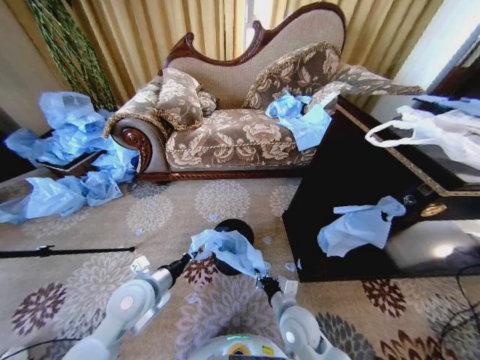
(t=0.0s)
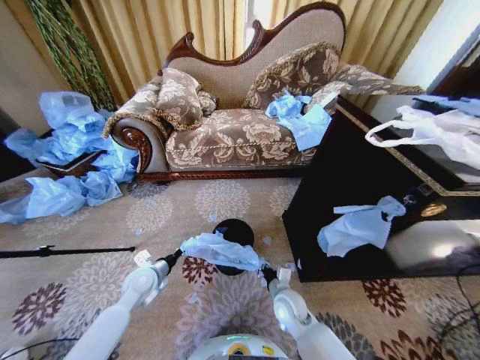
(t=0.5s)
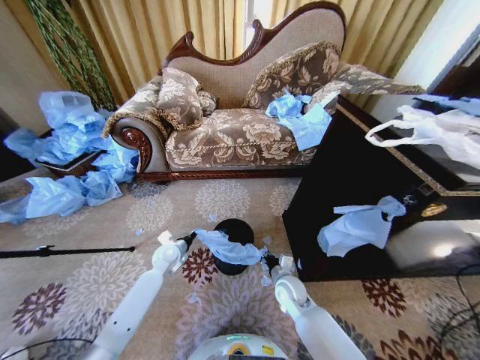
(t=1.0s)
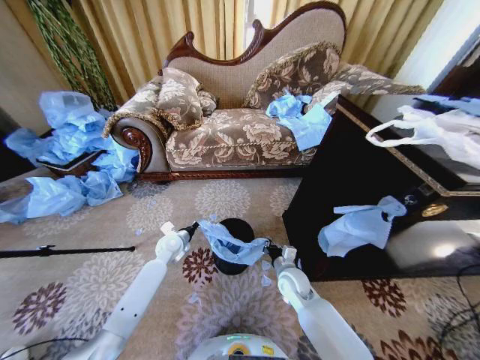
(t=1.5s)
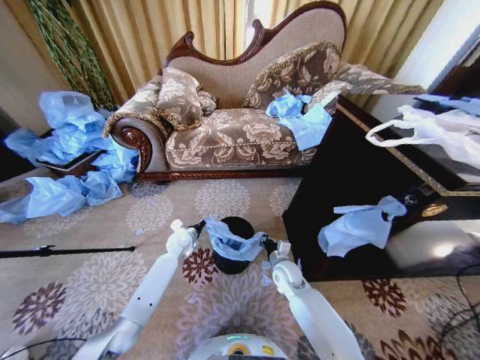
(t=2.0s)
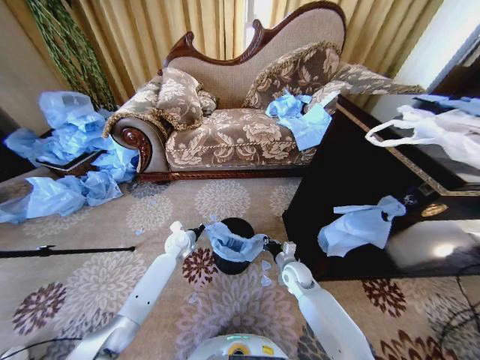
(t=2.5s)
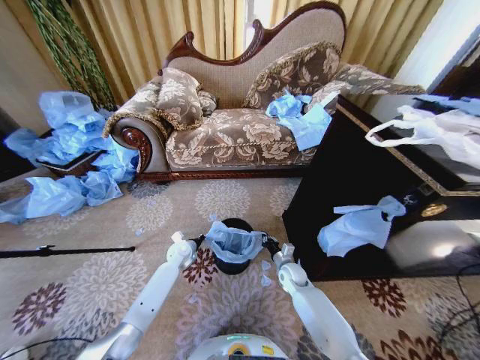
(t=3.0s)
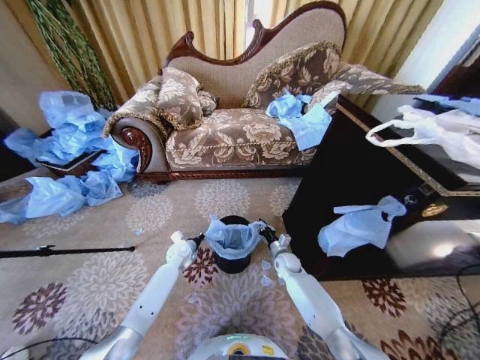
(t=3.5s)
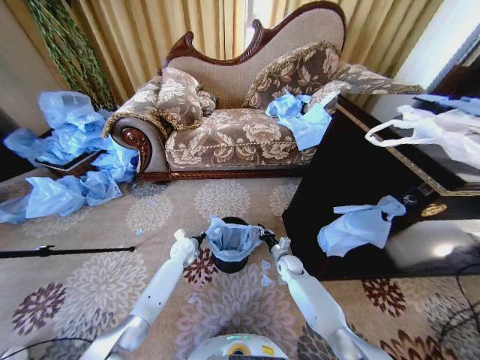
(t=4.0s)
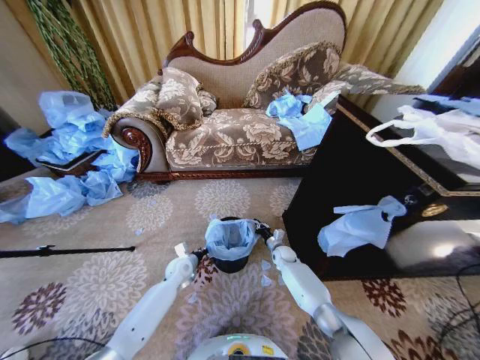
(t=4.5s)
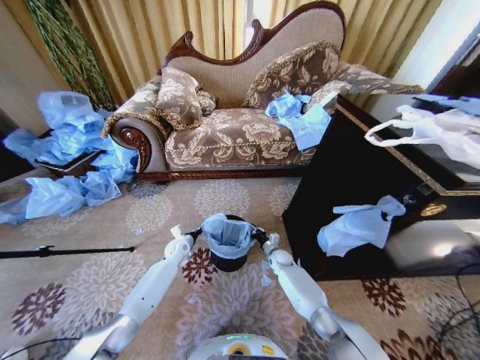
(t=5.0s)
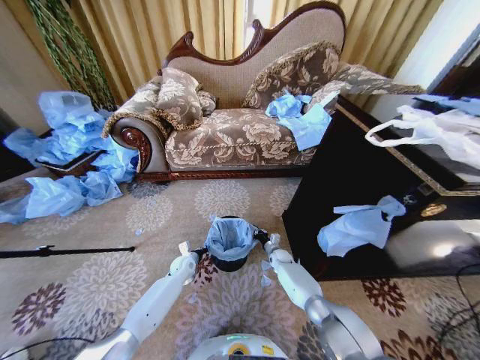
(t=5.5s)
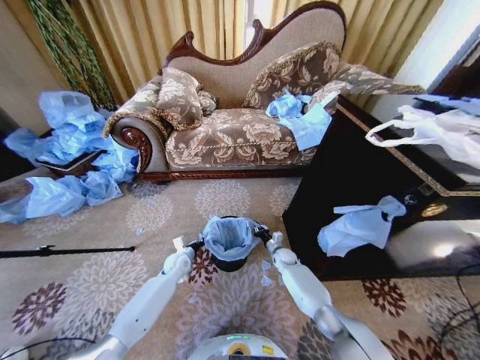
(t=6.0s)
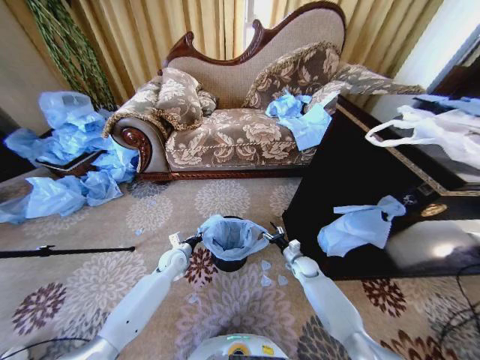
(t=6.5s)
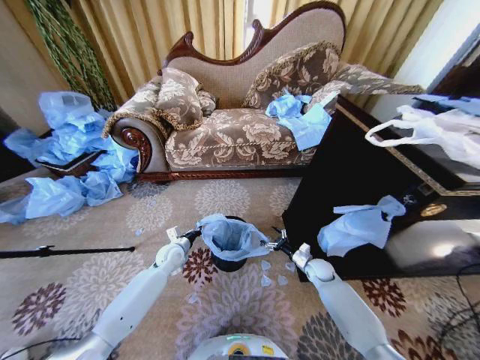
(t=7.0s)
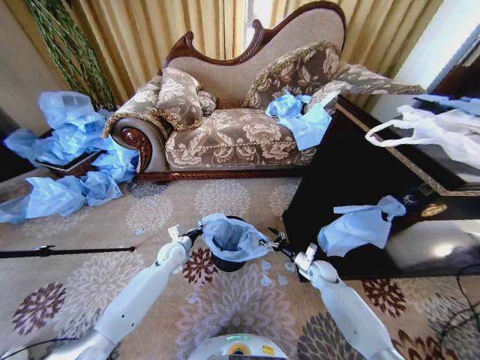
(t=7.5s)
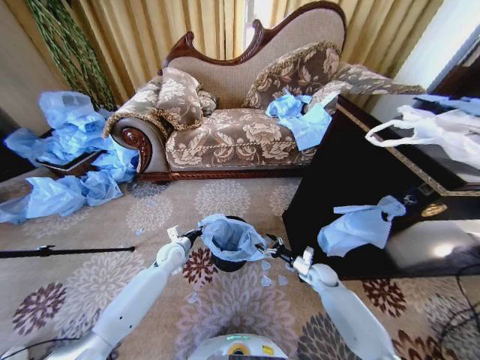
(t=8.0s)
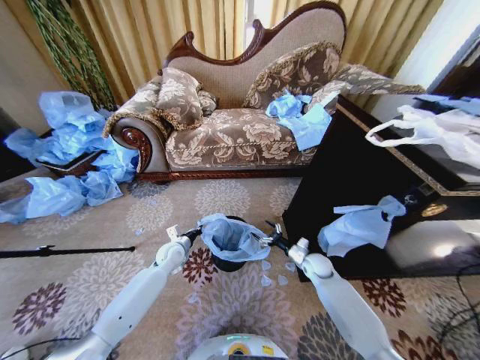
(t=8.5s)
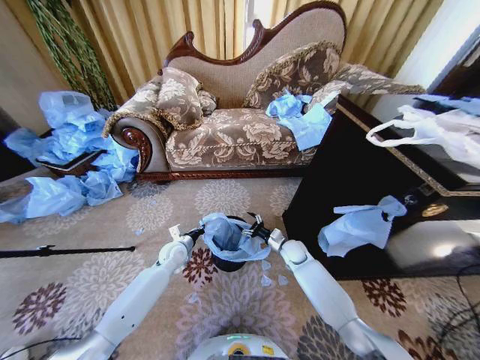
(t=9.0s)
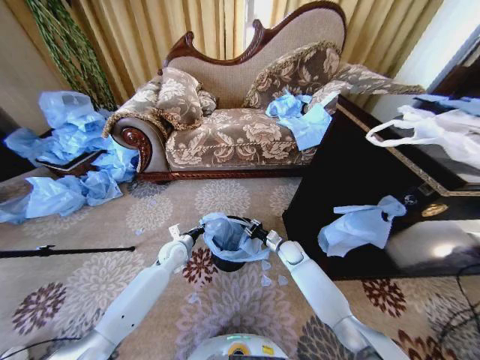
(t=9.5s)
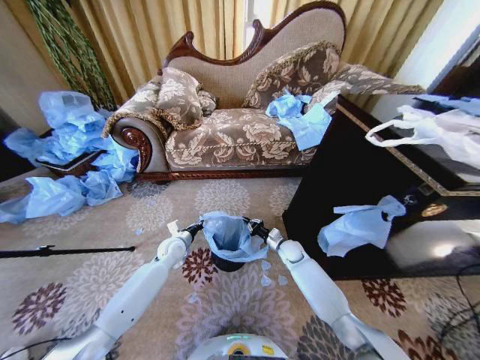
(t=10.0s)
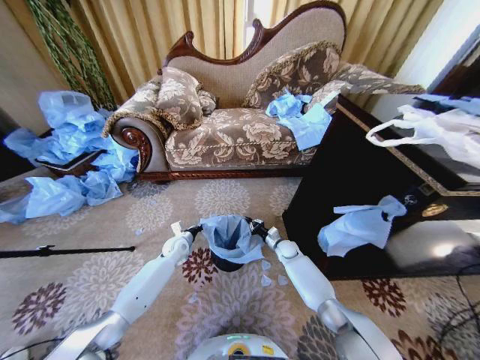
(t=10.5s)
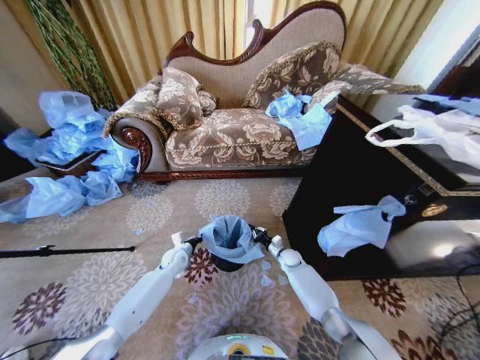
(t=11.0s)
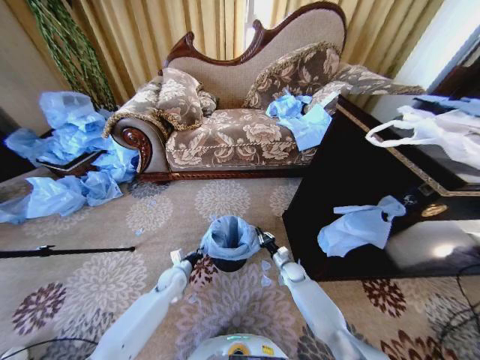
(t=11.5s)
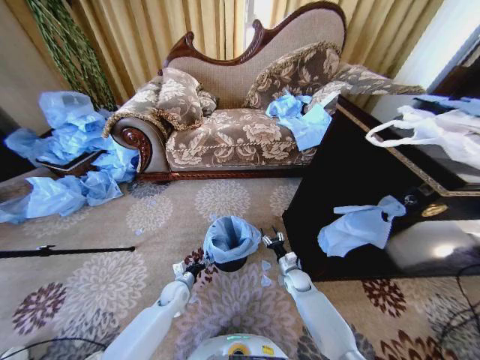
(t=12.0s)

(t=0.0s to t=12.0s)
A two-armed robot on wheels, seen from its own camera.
Task of the whole recording: Place a garbage bag over the trash bin.
t=0.0s - t=2.0s: The left gripper is displaced forward and downward by some 25 cm, while the right gripper moves forward, about 15 cm.
t=2.0s - t=4.0s: The right gripper goes roughly 10 cm downward and forward; the left gripper is displaced downward by approximately 5 cm.
t=4.0s - t=6.0s: The left gripper moves forward and backward over approximately 10 cm, changing direction 2 times.
t=6.0s - t=8.0s: The left gripper moves upward, roughly 5 cm; the right gripper shifts some 15 cm to the right and backward, and opens.
t=8.0s - t=10.0s: The right gripper moves to the left and forward, roughly 15 cm, and closes.
t=10.0s - t=12.0s: Both grippers move downward and backward, about 15 cm. The right gripper opens up. Meanwhile the left gripper opens up.

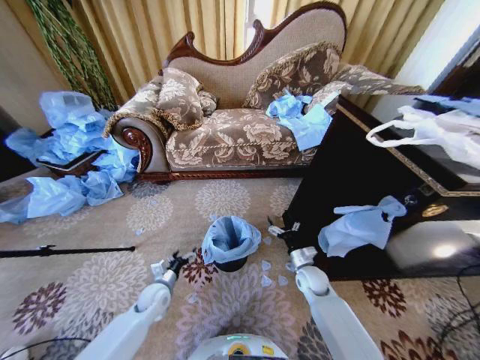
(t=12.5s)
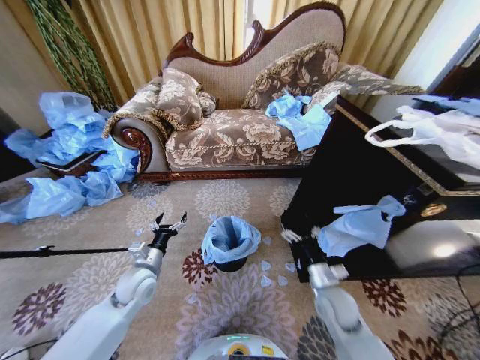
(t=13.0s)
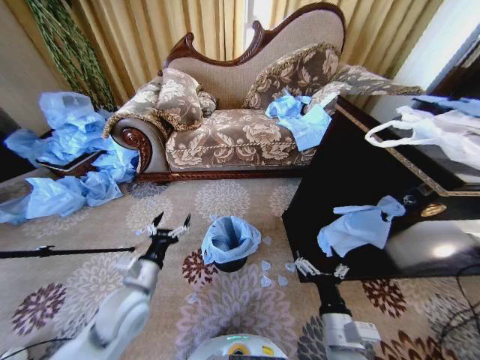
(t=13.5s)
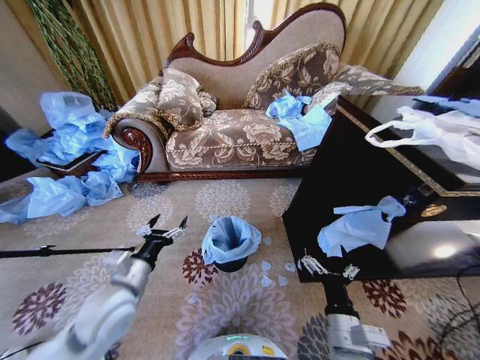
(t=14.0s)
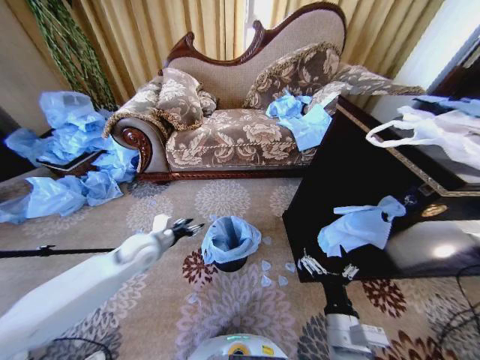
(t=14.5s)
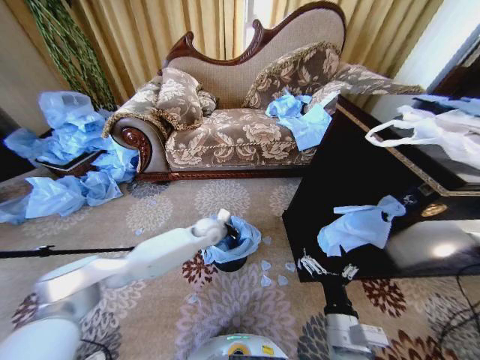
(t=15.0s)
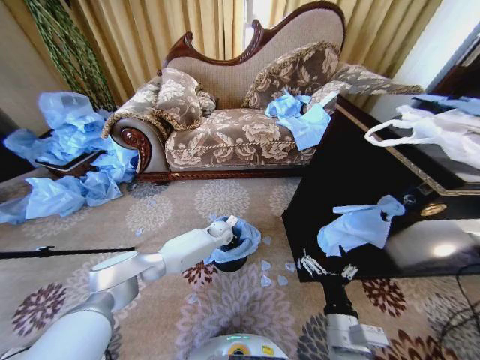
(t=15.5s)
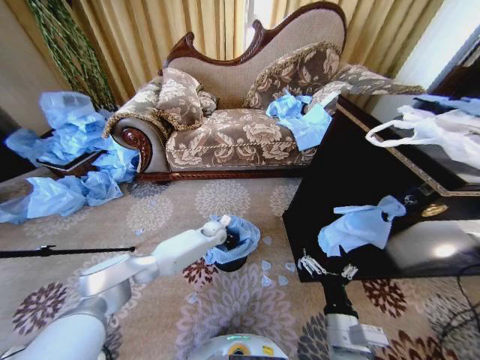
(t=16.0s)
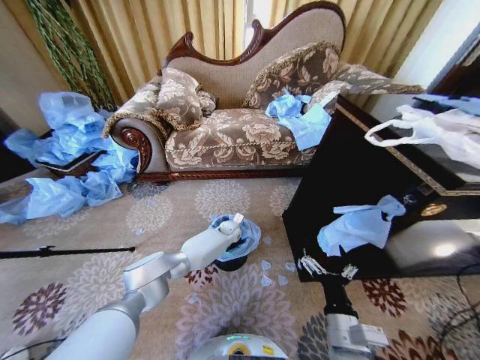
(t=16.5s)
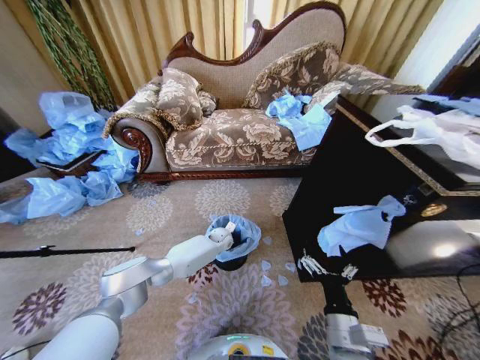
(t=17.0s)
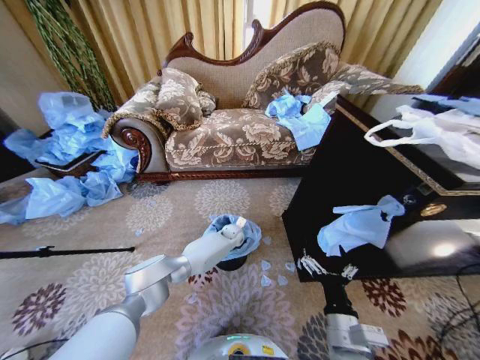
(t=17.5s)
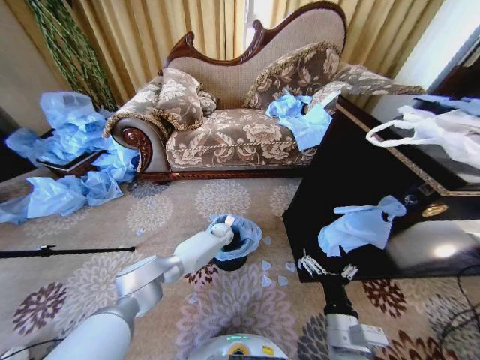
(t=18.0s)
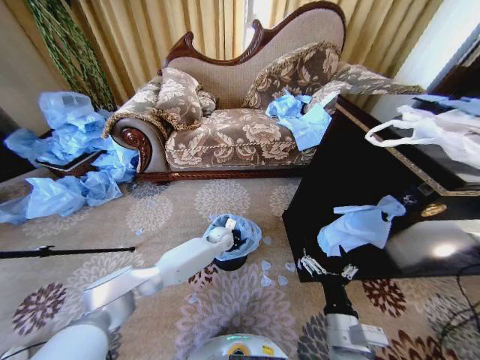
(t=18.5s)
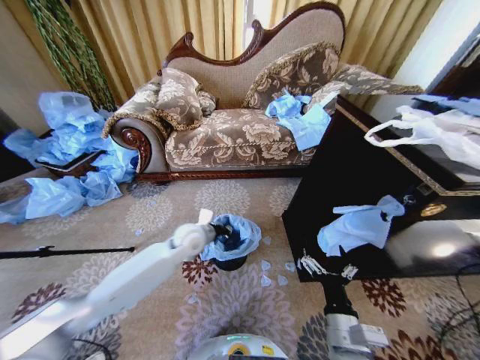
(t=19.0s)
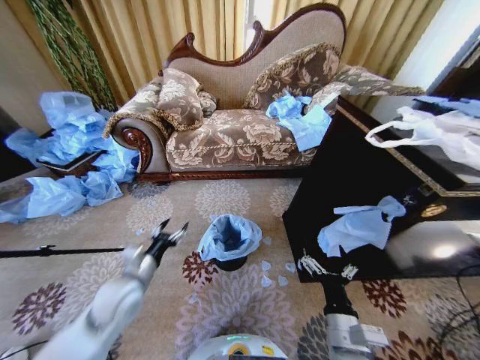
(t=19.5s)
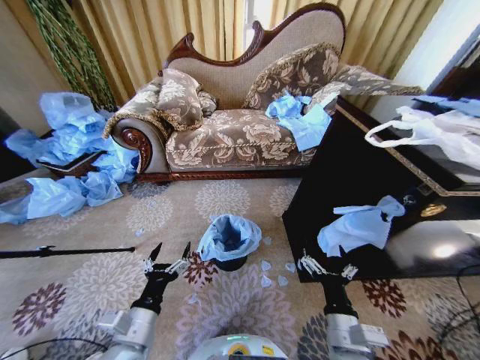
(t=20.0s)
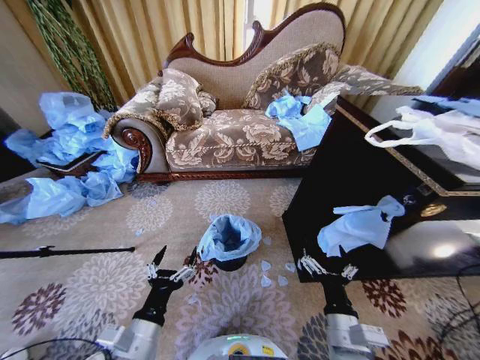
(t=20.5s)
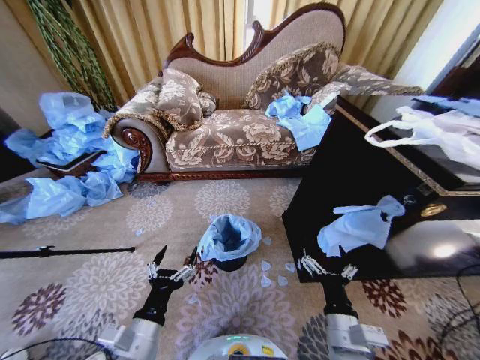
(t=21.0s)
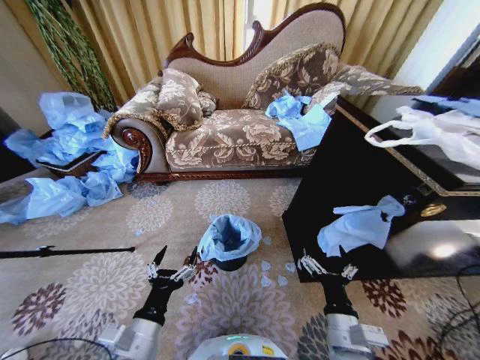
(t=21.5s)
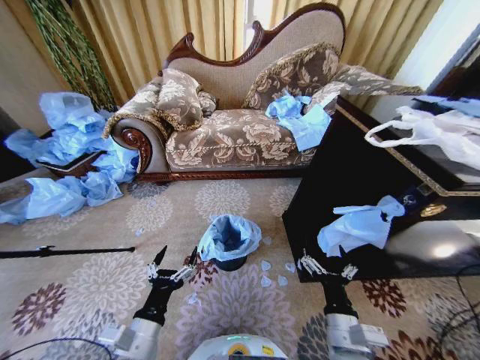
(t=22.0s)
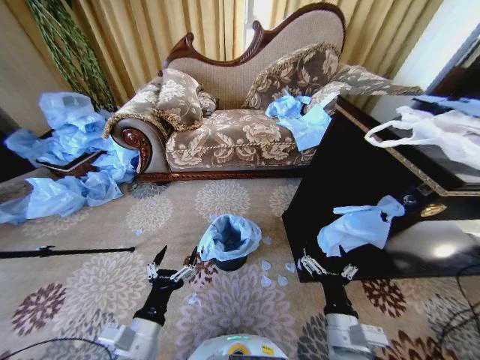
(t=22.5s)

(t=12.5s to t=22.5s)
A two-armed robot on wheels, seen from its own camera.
Task of the whole recording: Place a garbage bag over the trash bin.
t=12.5s - t=14.5s: The right gripper heads backward and upward, covering roughly 30 cm. The left gripper is displaced upward by roughly 20 cm.
t=14.5s - t=16.5s: The left gripper shifts roughly 35 cm to the right, forward and downward, and closes its fingers.
t=16.5s - t=18.5s: The left gripper travels backward by approximately 5 cm.
t=18.5s - t=20.5s: The left gripper heads backward, covering roughly 40 cm, and opens its fingers.
t=20.5s - t=22.5s: The two grippers keep their place.
